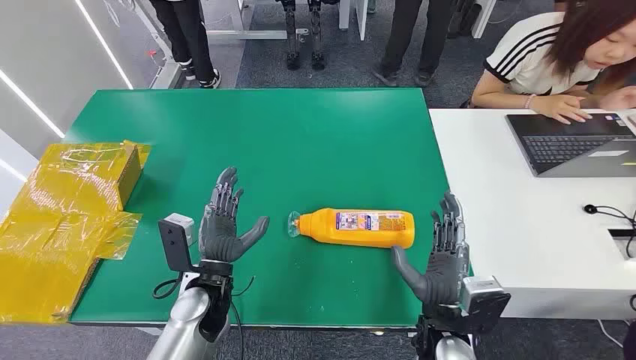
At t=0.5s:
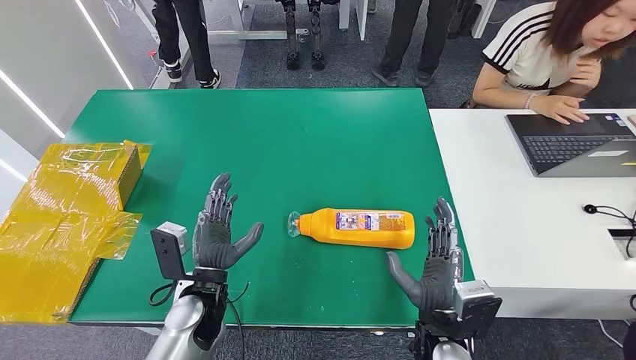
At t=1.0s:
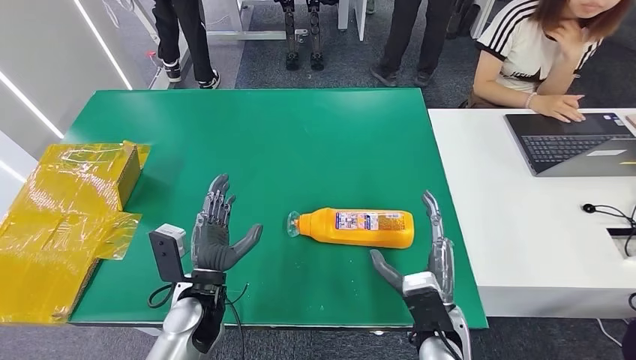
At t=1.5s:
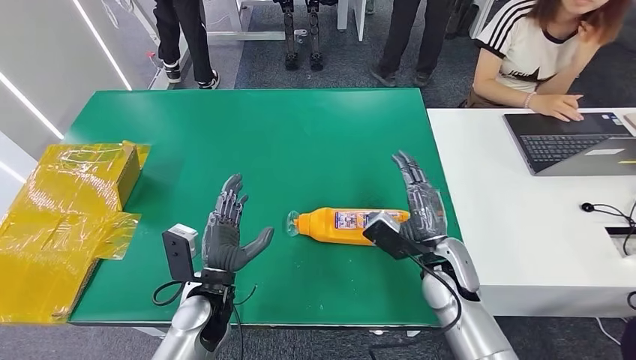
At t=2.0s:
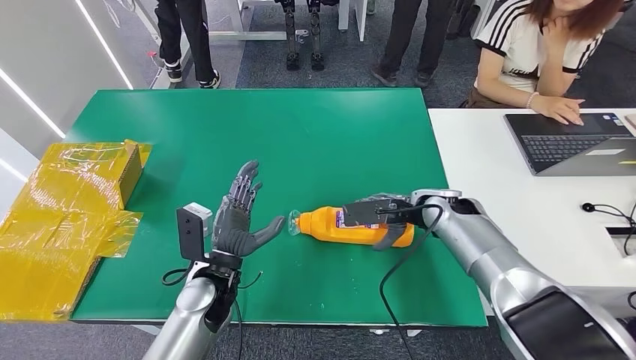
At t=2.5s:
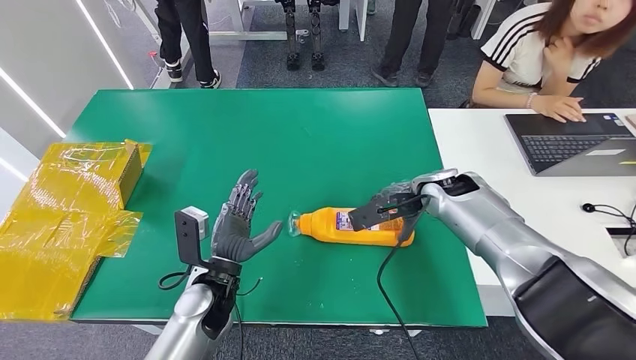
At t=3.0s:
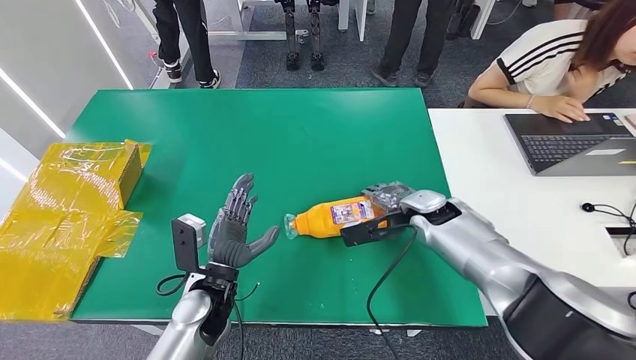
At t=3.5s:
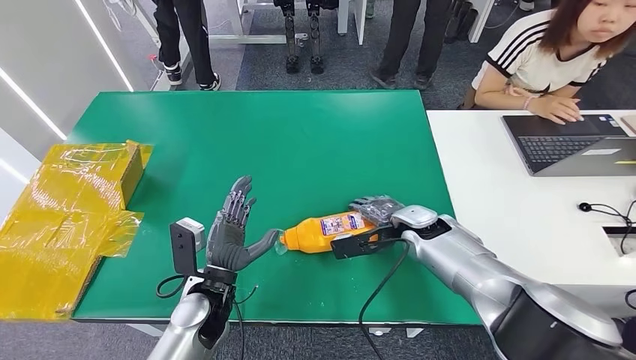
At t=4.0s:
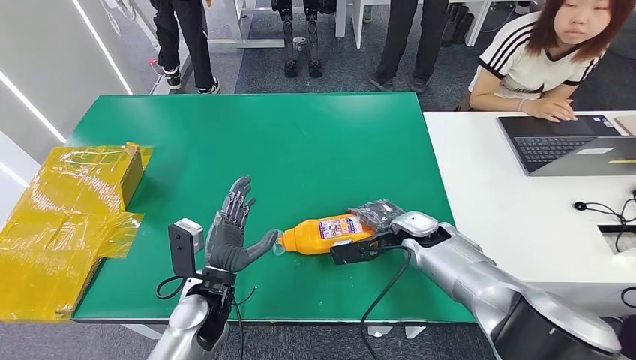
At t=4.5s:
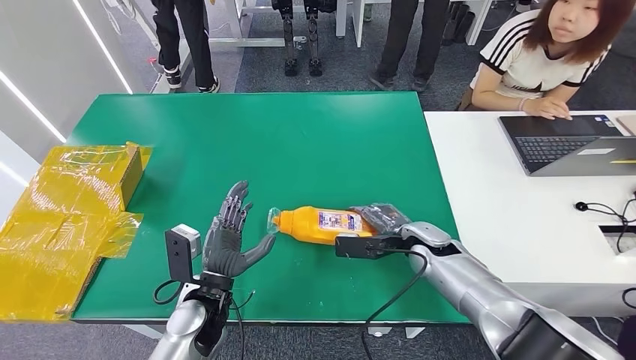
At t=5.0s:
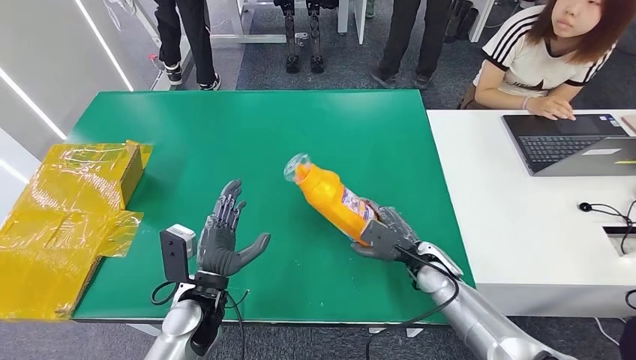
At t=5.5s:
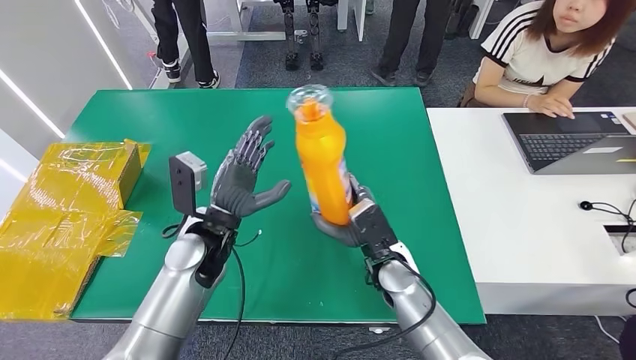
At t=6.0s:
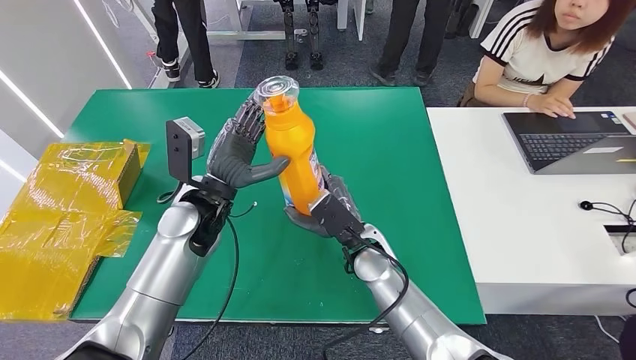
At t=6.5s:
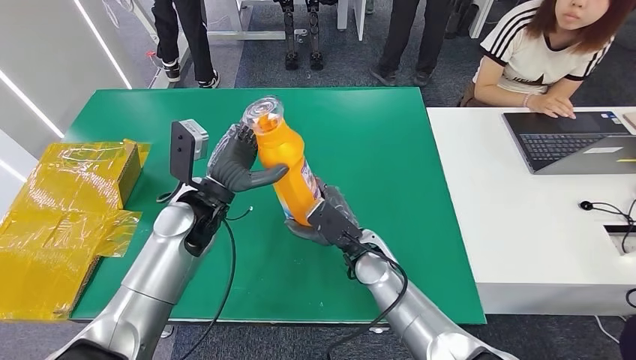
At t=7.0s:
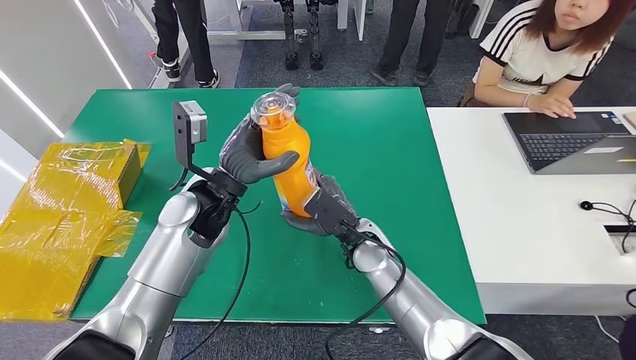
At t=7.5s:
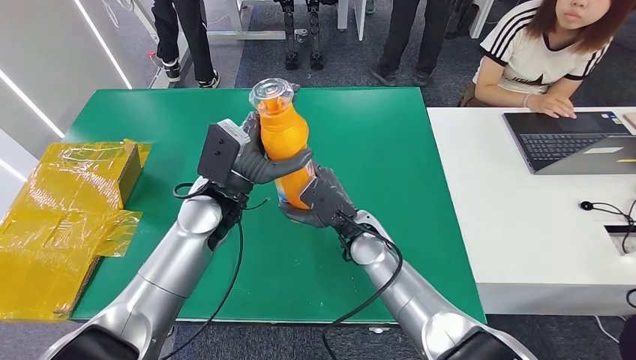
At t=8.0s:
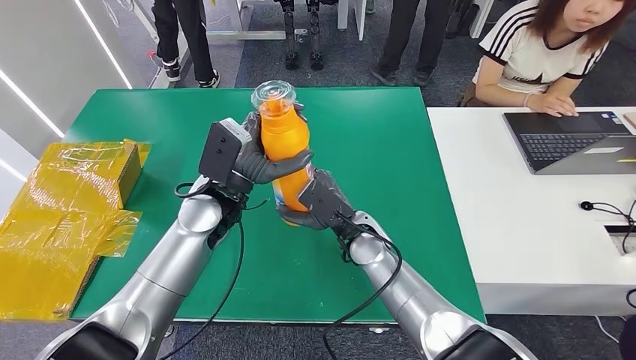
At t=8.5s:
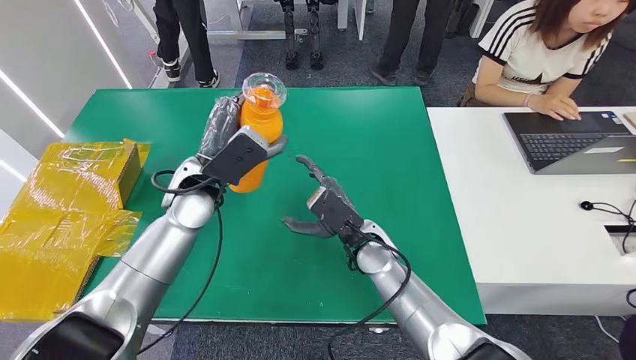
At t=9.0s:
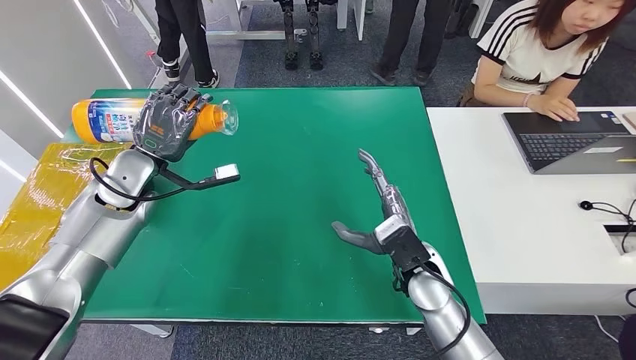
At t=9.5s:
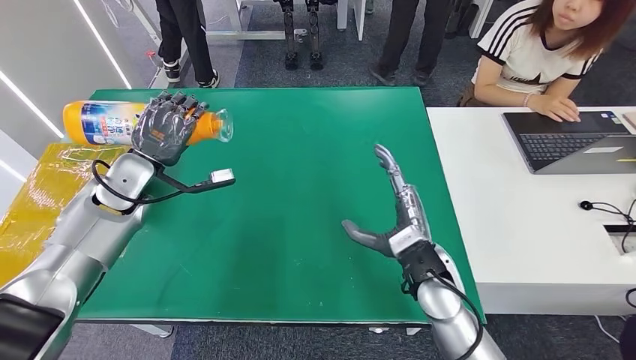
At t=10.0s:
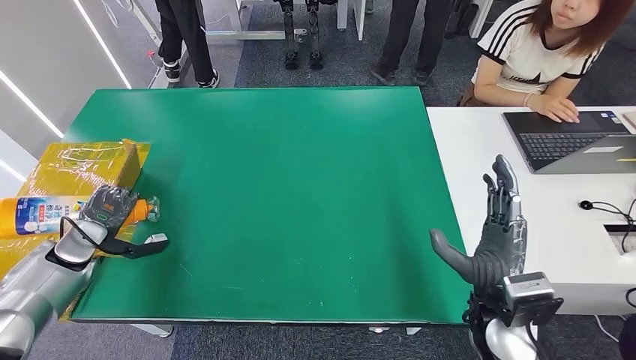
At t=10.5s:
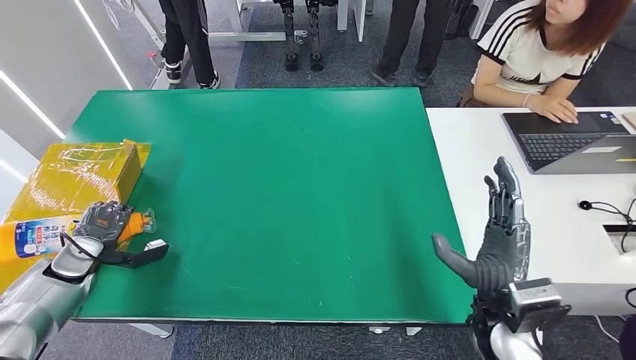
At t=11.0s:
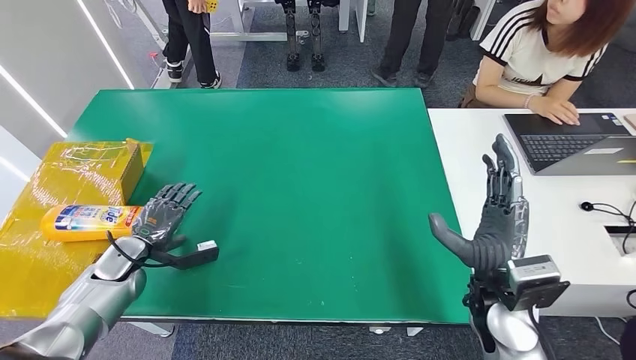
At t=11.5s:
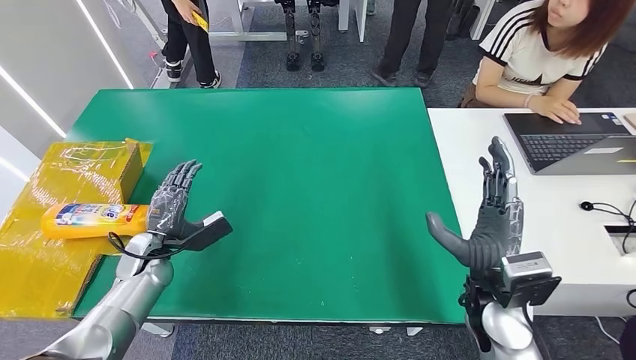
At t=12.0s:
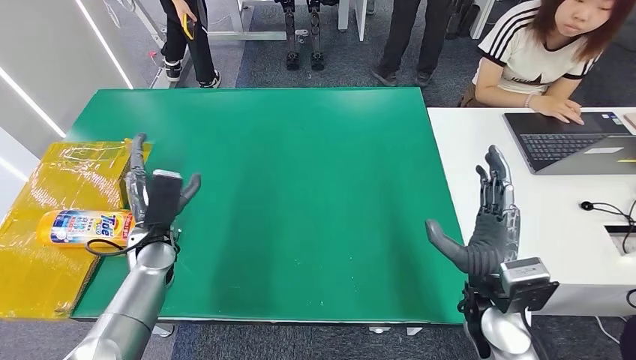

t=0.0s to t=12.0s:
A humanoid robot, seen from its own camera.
Step, t=0.0s to t=6.0s: Pick up the bottle from the table.
Step, t=7.0s to t=12.0s: Turn the bottle to the front side.
t=10.0s to t=12.0s: The left hand moves to the right, about 15 cm.
